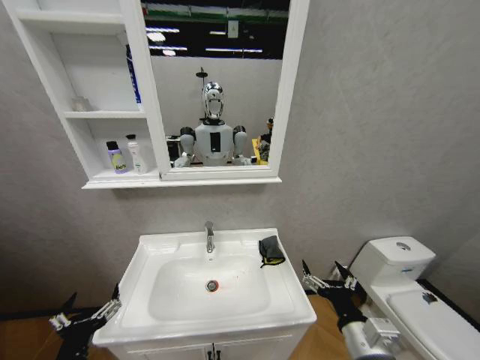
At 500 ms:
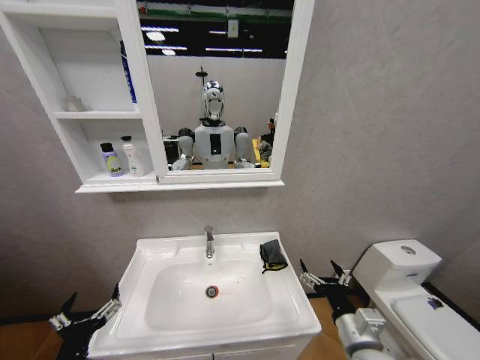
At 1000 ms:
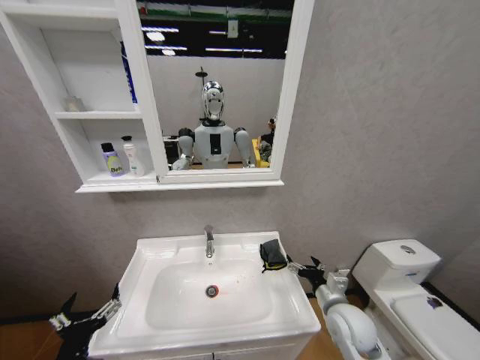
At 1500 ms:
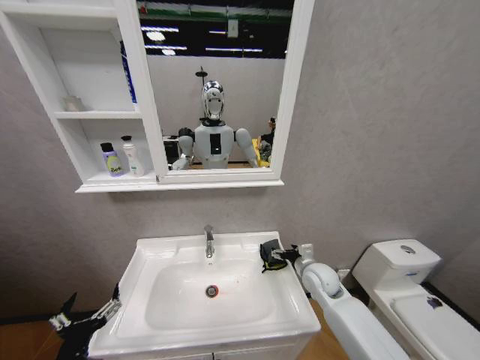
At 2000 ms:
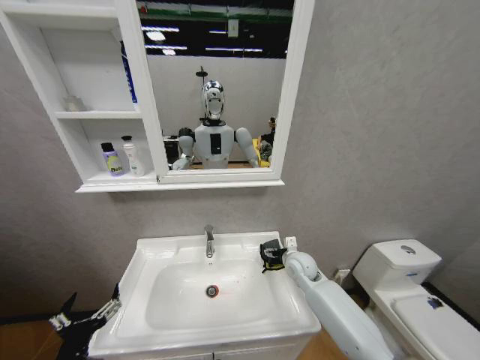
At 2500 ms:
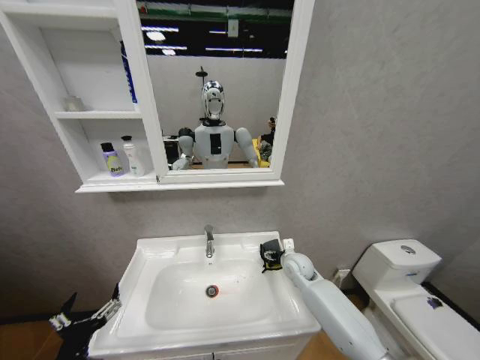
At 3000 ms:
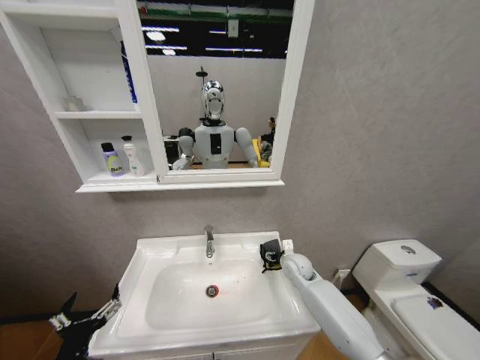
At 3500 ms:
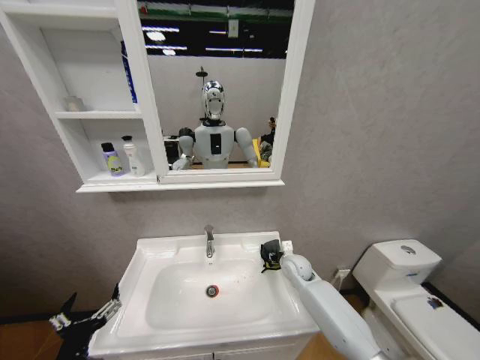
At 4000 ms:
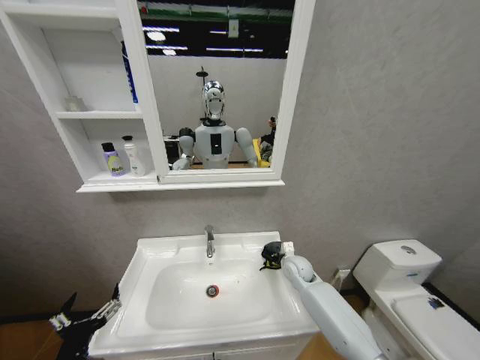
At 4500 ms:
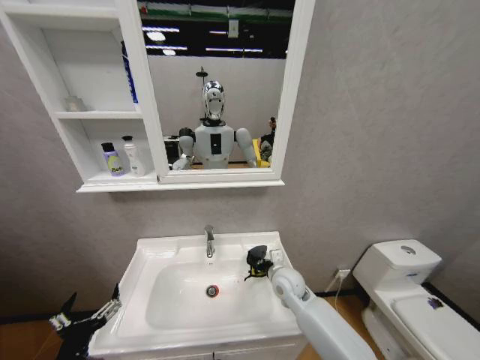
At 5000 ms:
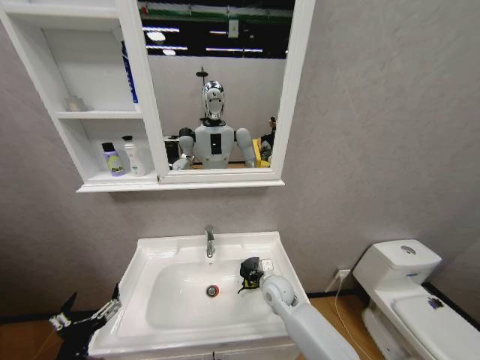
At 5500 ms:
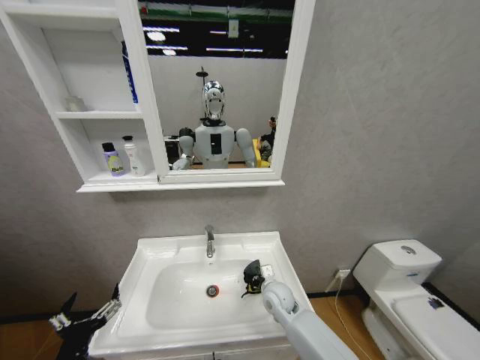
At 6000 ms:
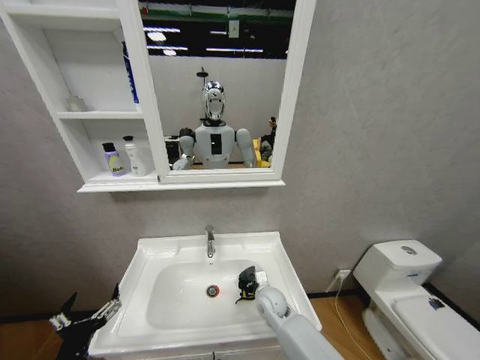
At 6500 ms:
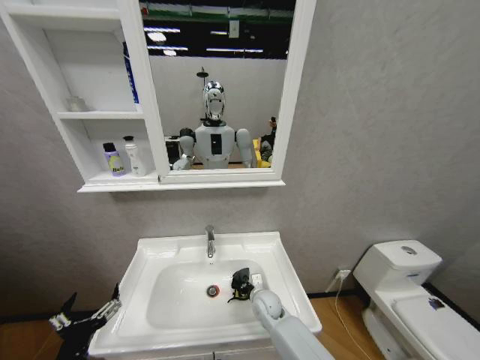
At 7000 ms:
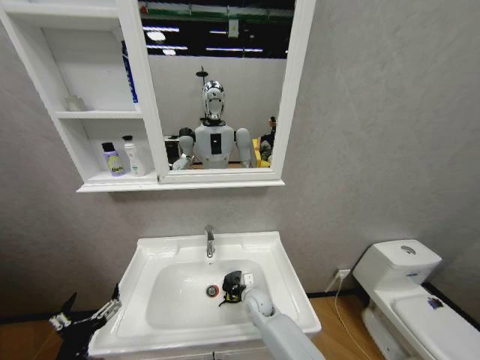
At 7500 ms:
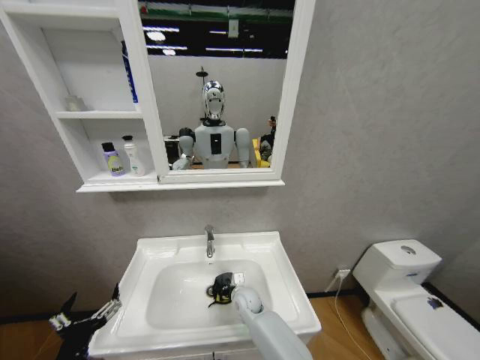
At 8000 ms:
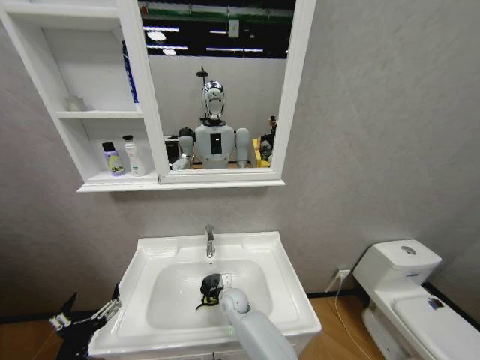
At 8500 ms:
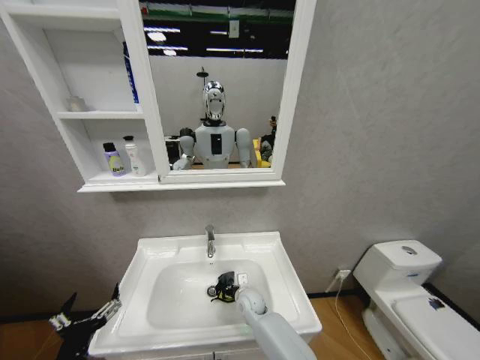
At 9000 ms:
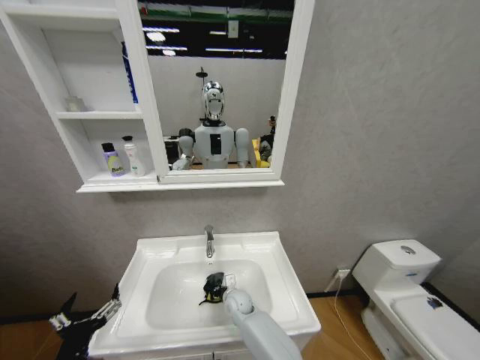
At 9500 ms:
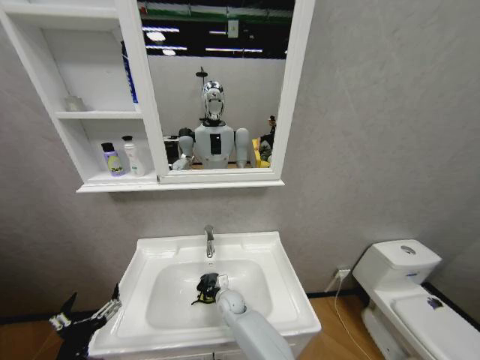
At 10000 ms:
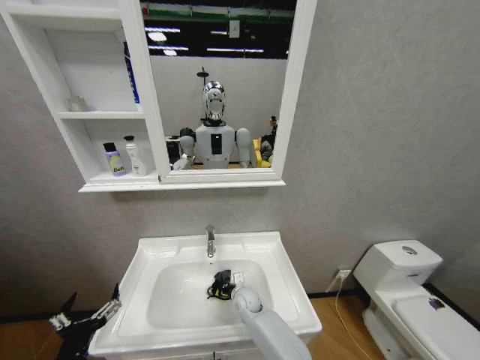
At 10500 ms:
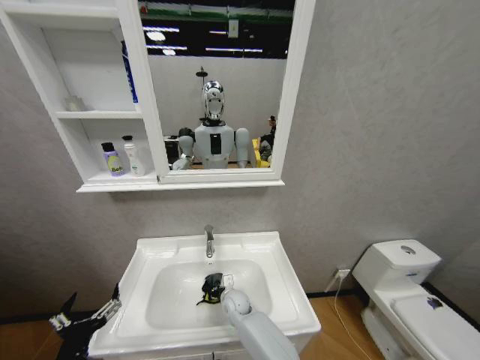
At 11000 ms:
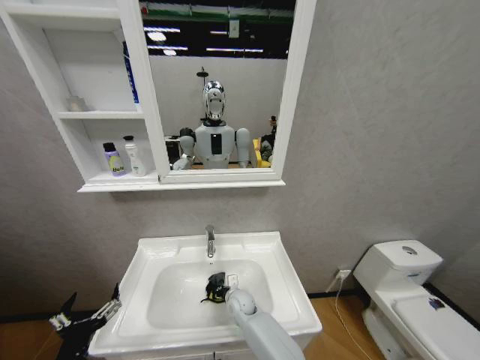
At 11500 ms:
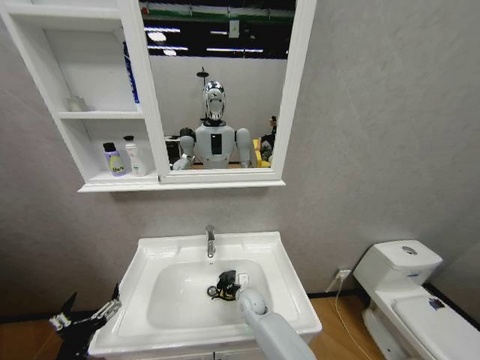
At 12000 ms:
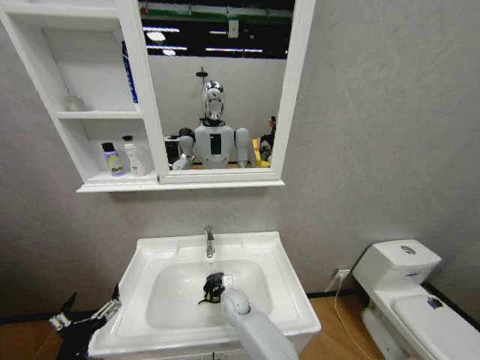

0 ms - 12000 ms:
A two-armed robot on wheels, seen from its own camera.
Task of the whole recording: Move facial cleanser and shampoo from washbasin to cabinet, then wipe washbasin with towel.
0 ms - 2000 ms: The right gripper shifts some 30 cm forward.
2000 ms - 4000 ms: The right gripper closes up.
4000 ms - 6000 ms: The right gripper goes about 15 cm to the left, backward and downward.
6000 ms - 8000 ms: The right gripper travels to the left by about 10 cm.
8000 ms - 10000 ms: The right gripper swings left and right, some 5 cm each way, with 2 reversals.
10000 ms - 12000 ms: The grippers stay close to where they were, moving slightly.

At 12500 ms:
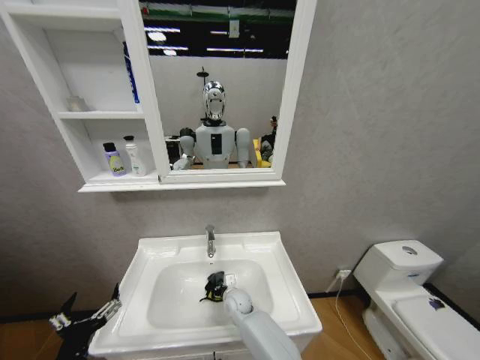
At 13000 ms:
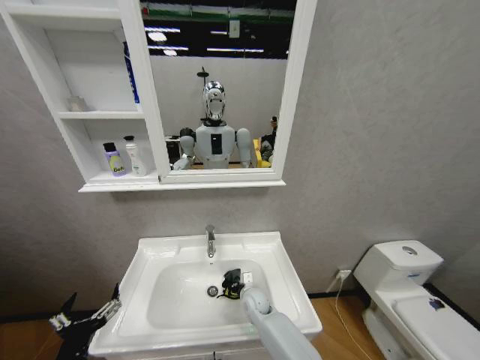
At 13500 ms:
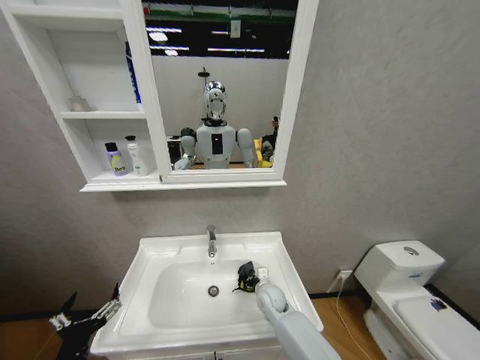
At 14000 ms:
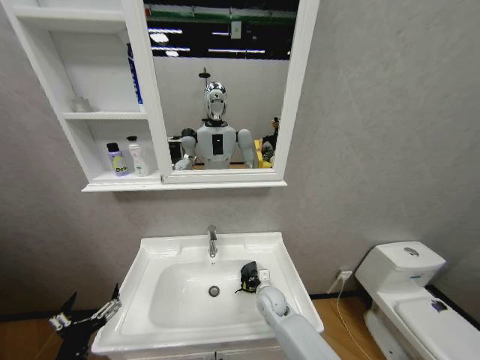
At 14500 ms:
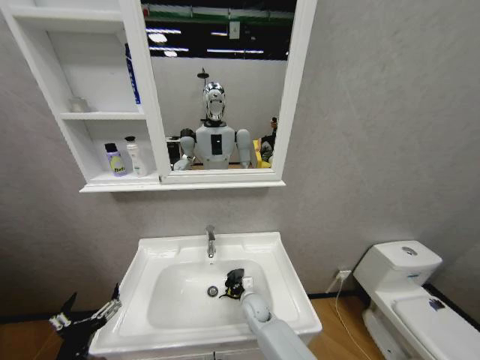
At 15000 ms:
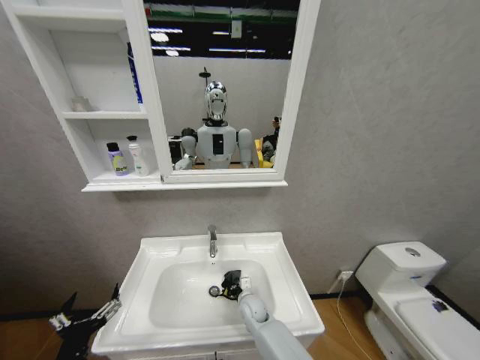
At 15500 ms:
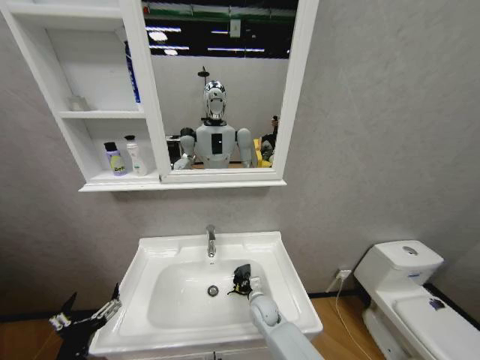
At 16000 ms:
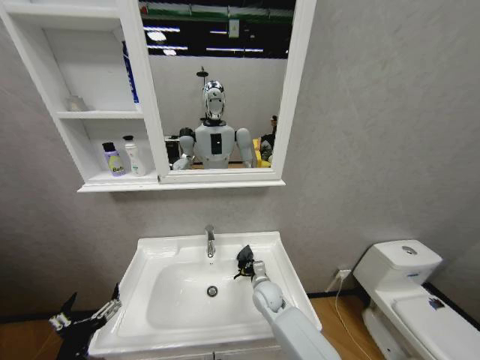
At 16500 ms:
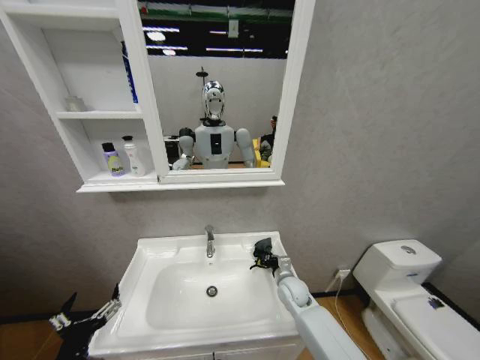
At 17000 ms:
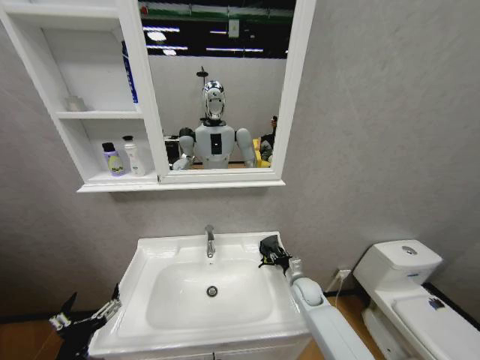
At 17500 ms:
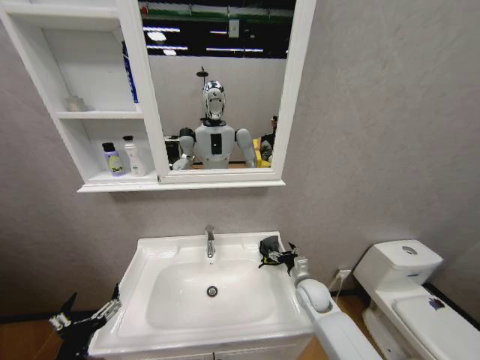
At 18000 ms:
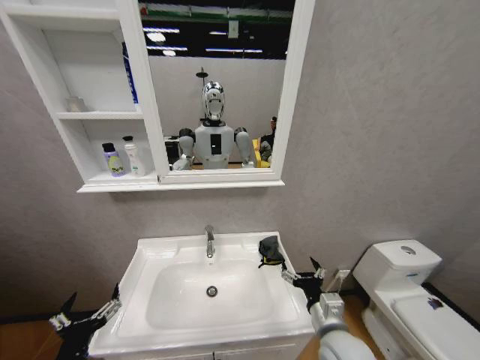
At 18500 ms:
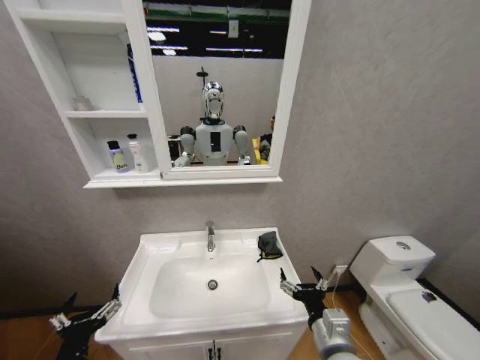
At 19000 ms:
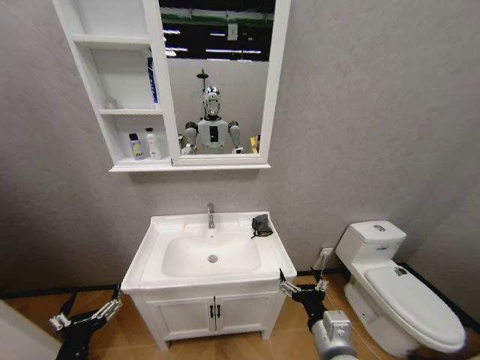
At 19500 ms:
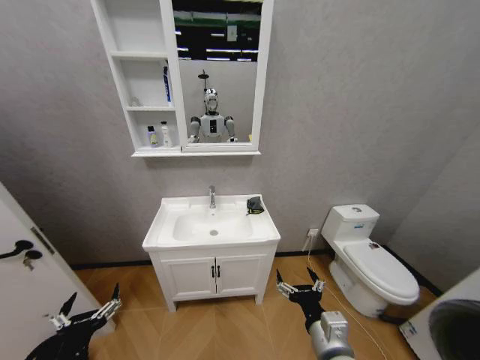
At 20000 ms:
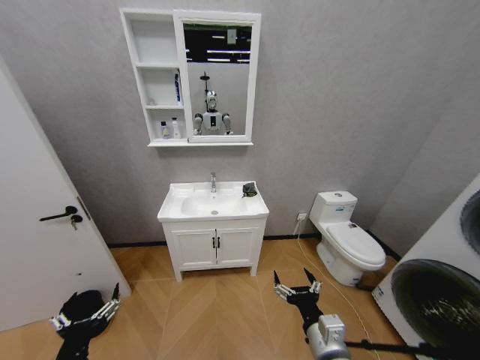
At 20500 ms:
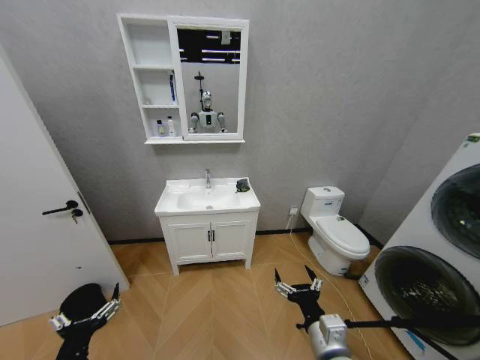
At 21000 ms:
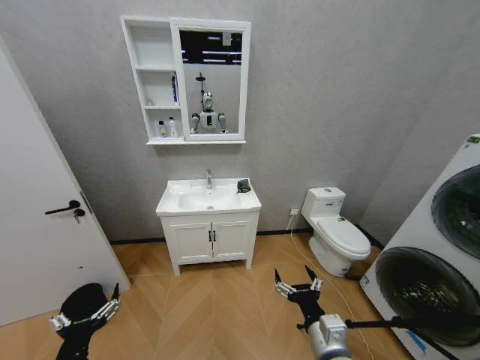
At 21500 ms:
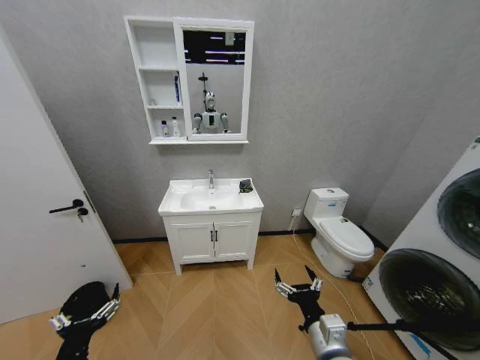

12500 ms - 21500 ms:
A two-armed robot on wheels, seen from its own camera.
Task of the whole recording: Move facial cleanser and shampoo from washbasin to cabinet, then wipe washbasin with towel.
12500 ms - 14500 ms: The right gripper moves to the right, roughly 5 cm.
14500 ms - 17000 ms: The right gripper moves to the right, roughly 20 cm, and opens up.
17000 ms - 19500 ms: The right gripper moves backward and upward, approximately 30 cm, and opens its fingers.
